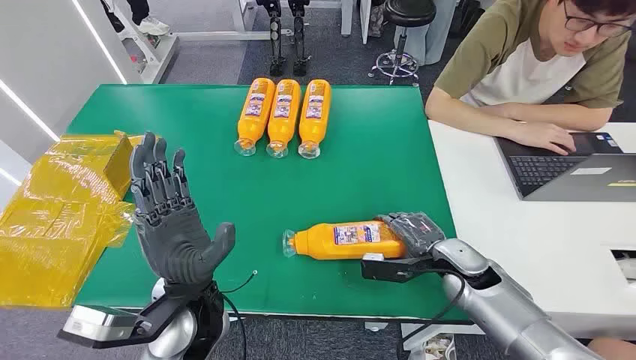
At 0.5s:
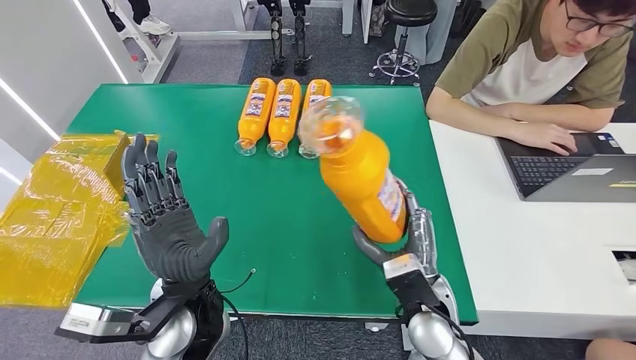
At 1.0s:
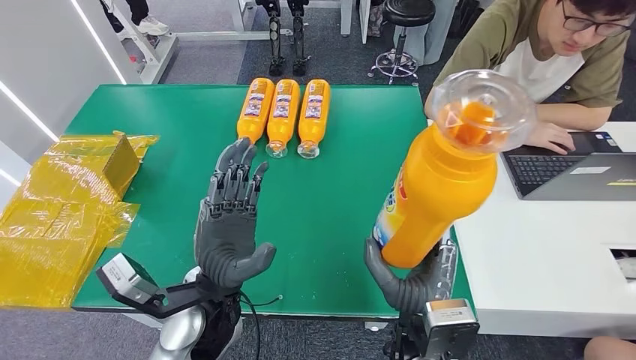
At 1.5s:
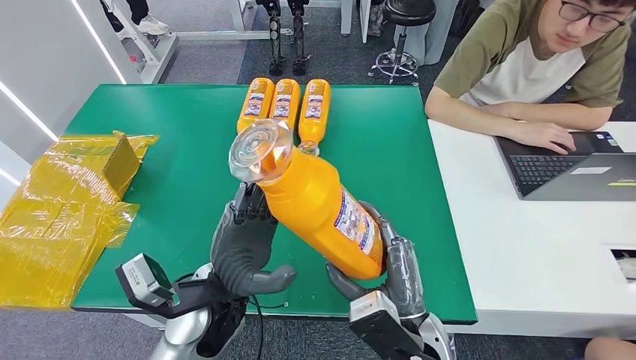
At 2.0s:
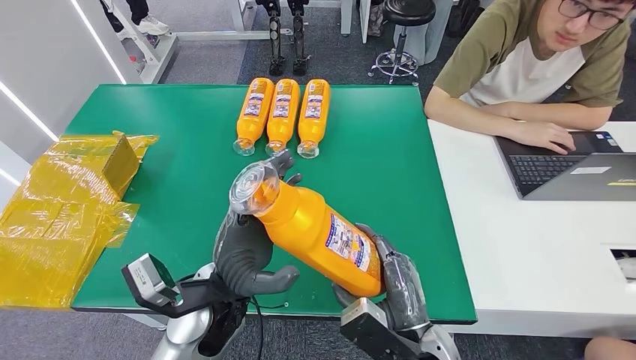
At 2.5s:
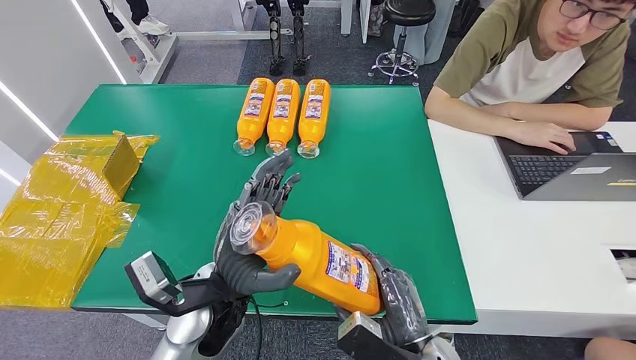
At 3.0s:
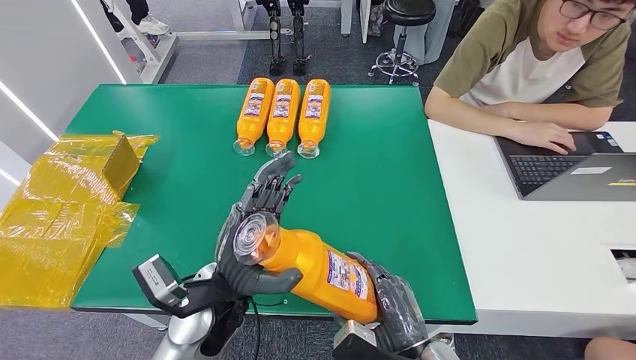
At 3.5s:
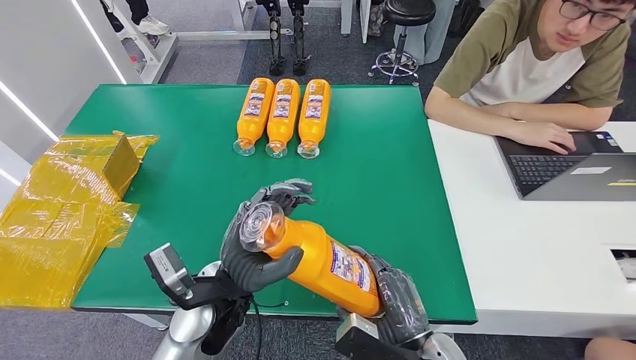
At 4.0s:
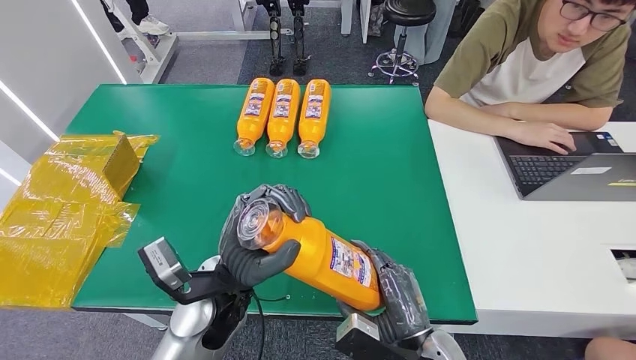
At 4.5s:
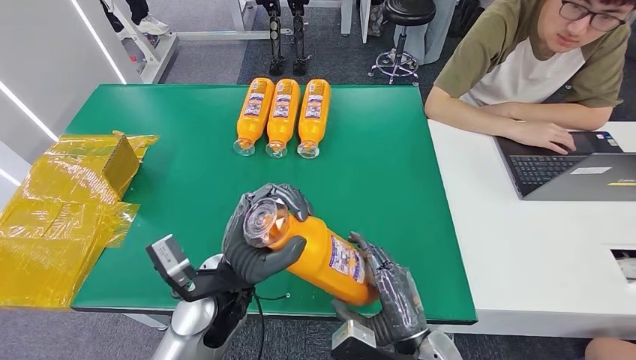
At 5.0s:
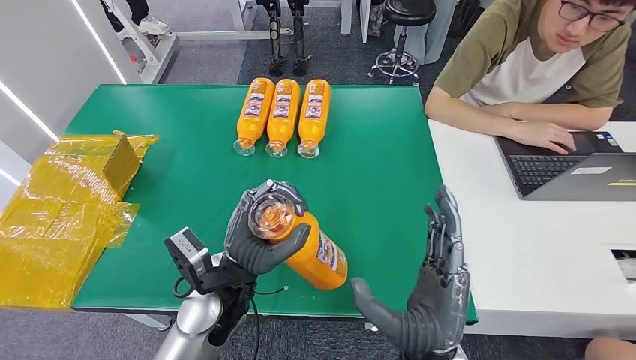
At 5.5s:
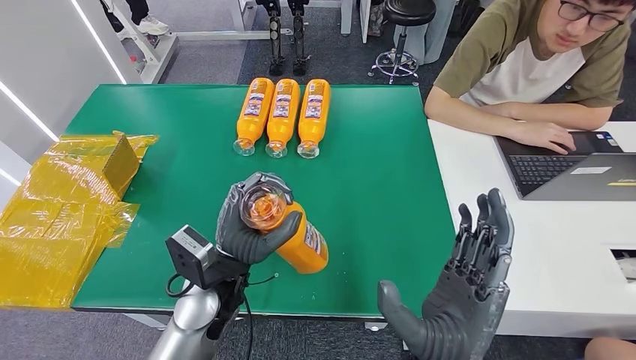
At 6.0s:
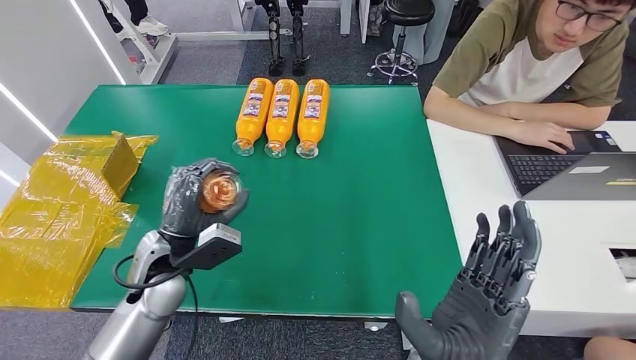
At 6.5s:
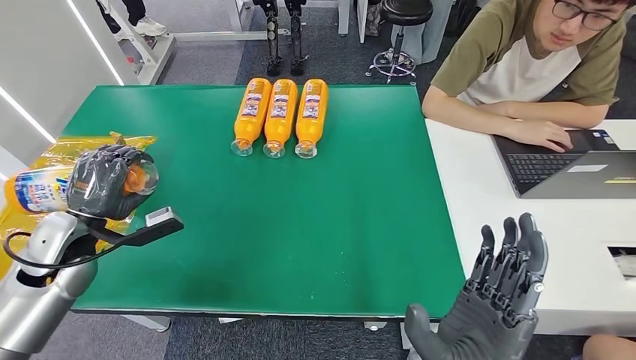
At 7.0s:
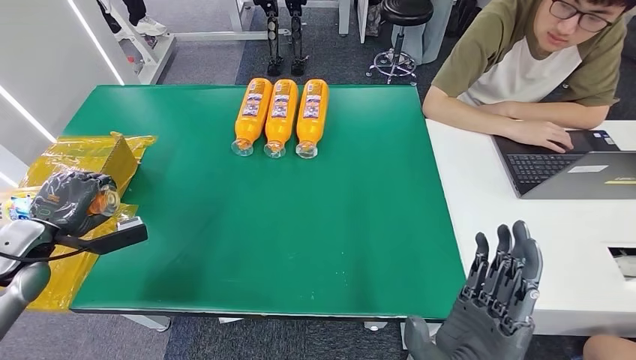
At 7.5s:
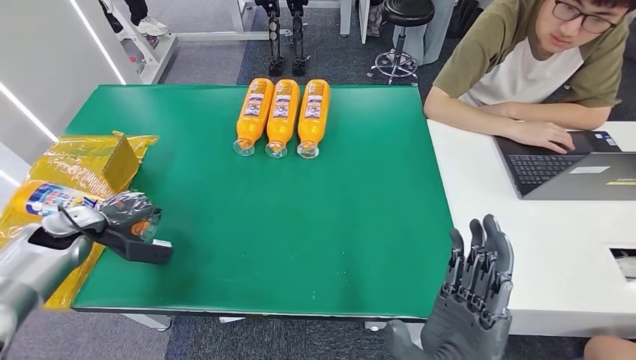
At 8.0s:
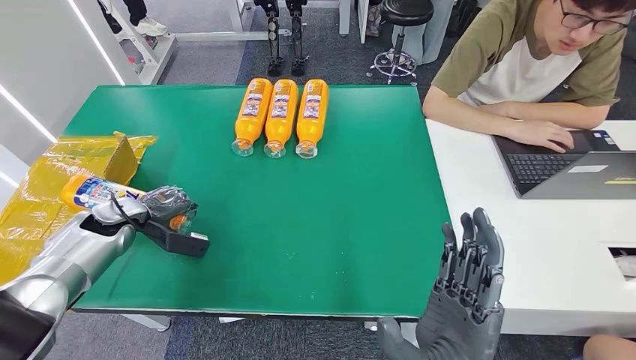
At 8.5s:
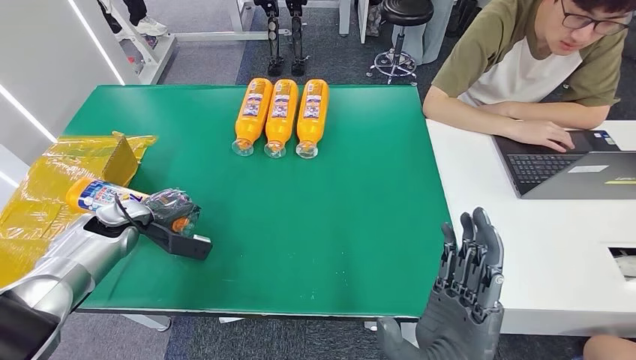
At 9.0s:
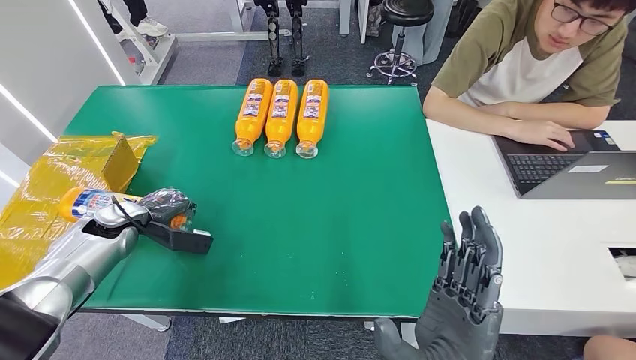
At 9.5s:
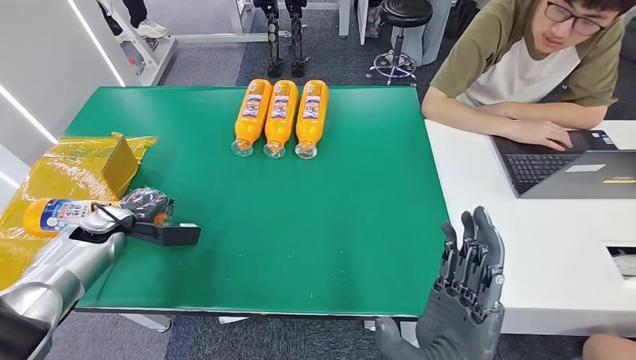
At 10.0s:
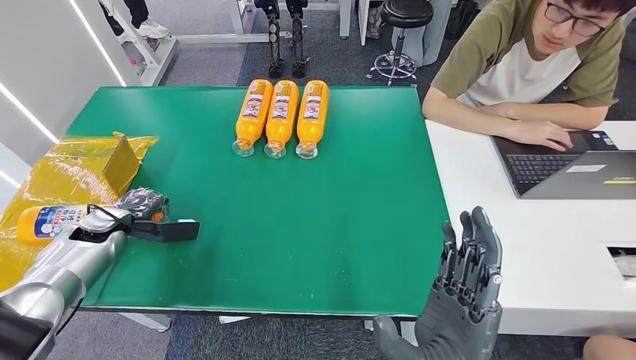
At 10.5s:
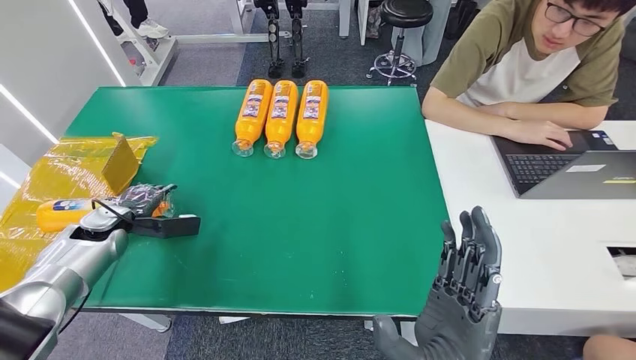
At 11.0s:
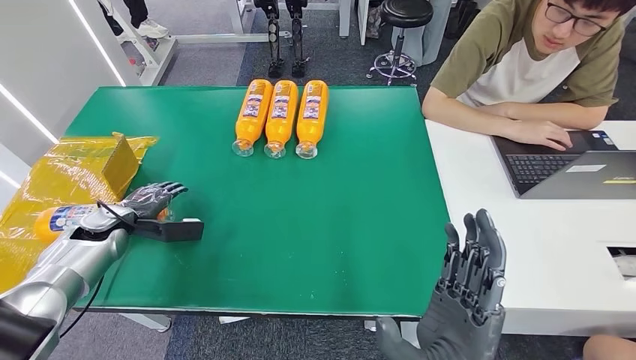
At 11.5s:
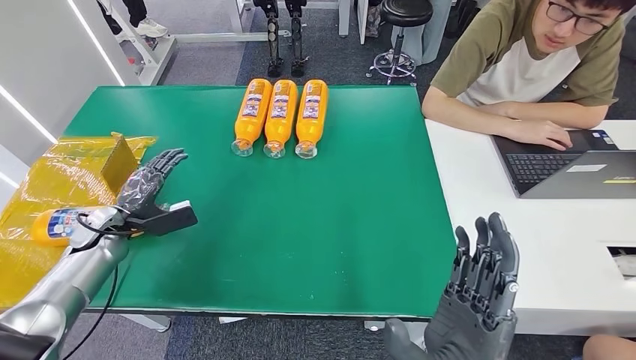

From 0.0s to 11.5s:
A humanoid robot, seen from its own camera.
Step, from 0.0s to 3.5s: Pick up the bottle from the table.
Step, from 4.0s to 11.5s: Turn the bottle to the front side.
From 2.0s to 4.0s: The hands stay close to where they were, moving slightly.
From 6.0s to 7.5s: The left hand heads to the left, covering roughly 25 cm.
From 7.5s to 9.5s: The left hand moves roughly 5 cm.

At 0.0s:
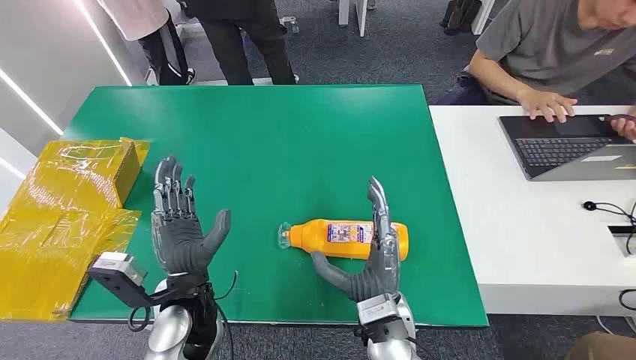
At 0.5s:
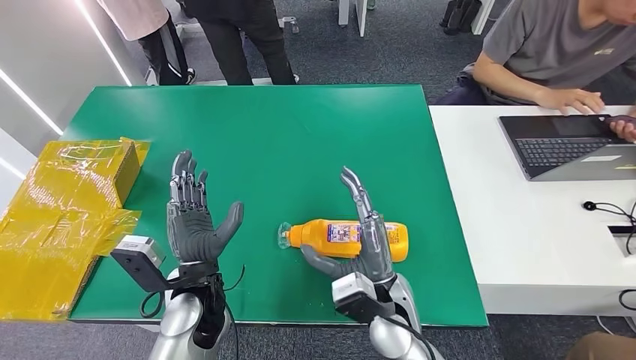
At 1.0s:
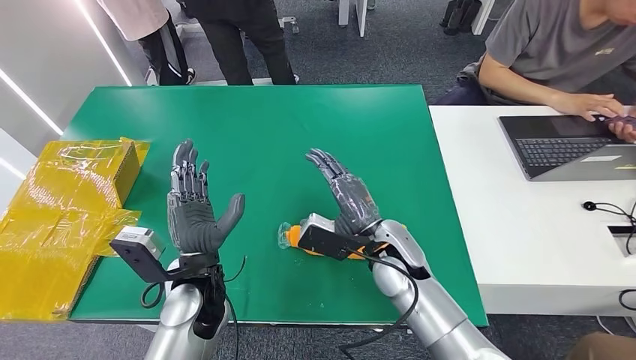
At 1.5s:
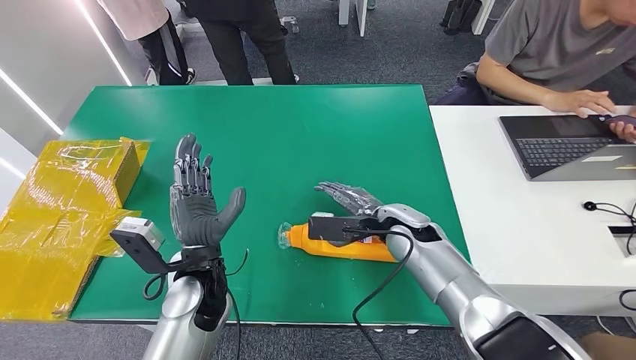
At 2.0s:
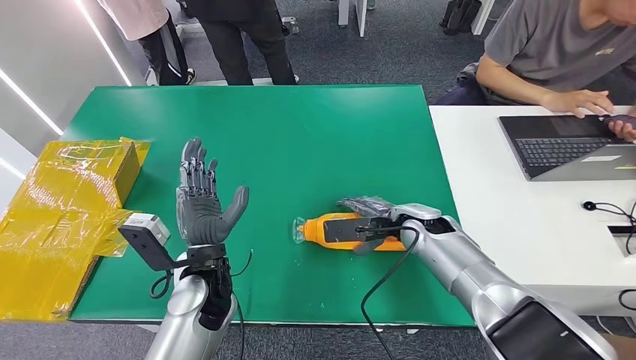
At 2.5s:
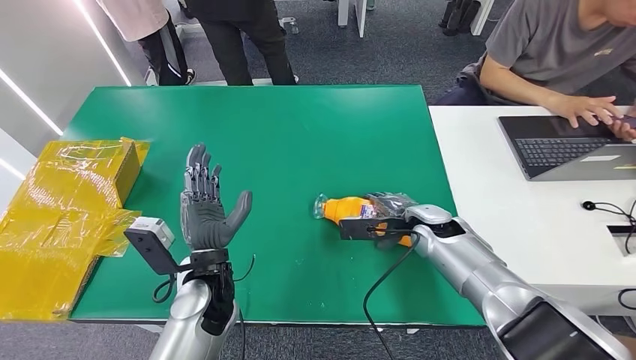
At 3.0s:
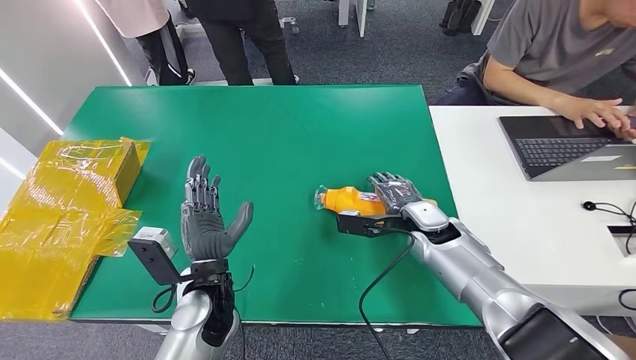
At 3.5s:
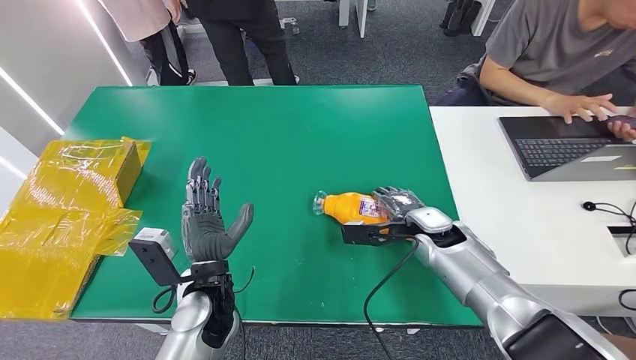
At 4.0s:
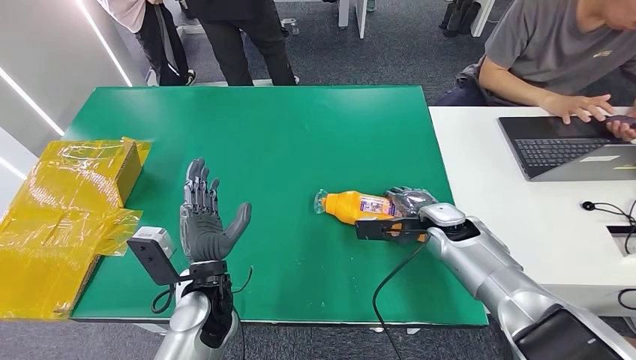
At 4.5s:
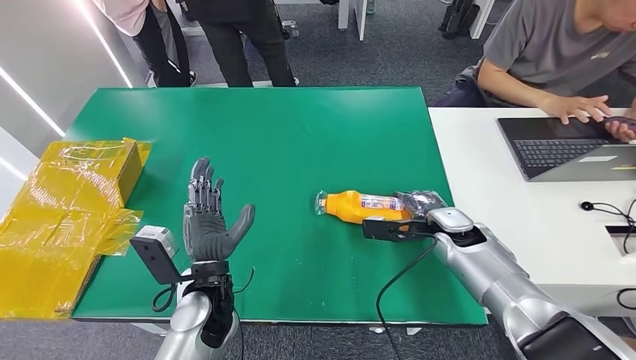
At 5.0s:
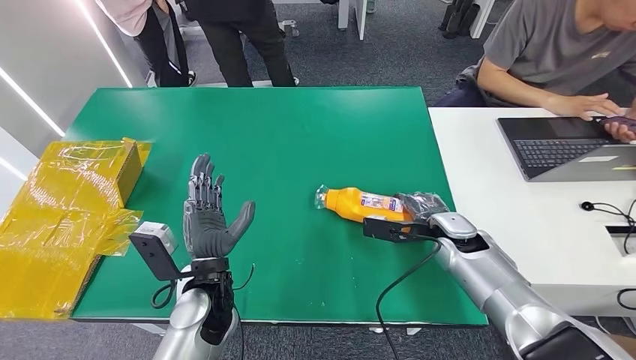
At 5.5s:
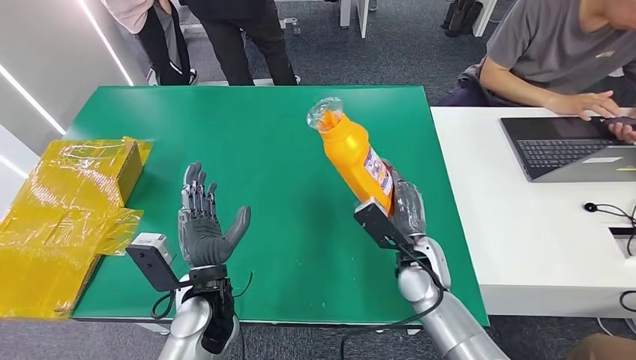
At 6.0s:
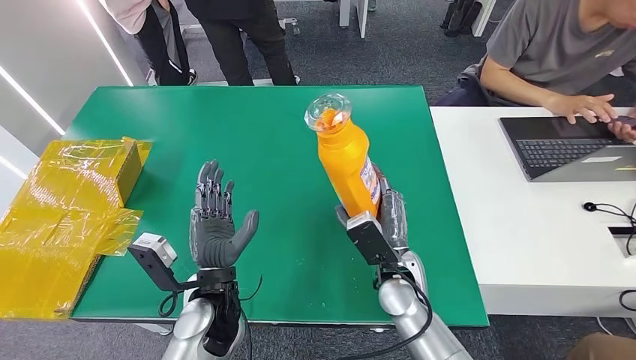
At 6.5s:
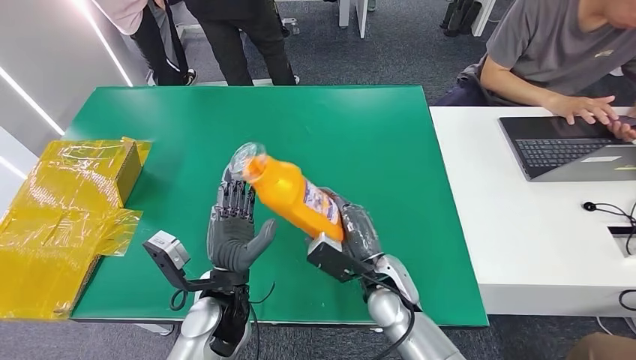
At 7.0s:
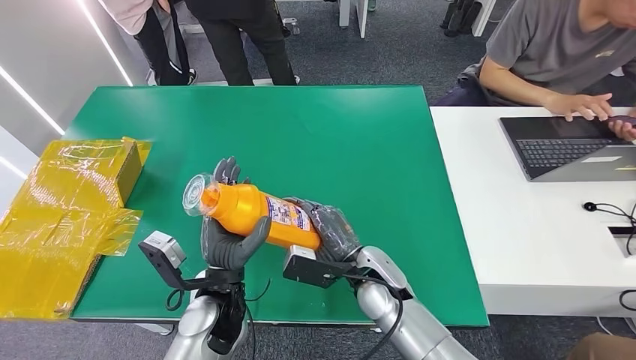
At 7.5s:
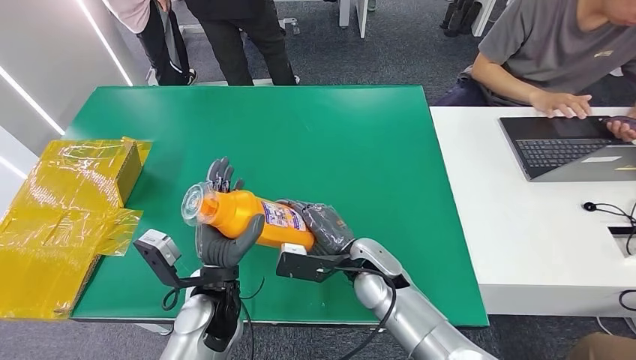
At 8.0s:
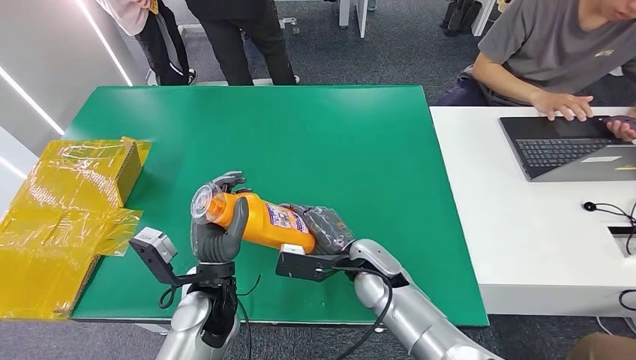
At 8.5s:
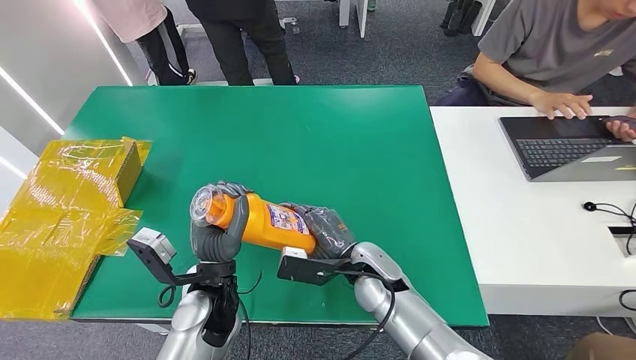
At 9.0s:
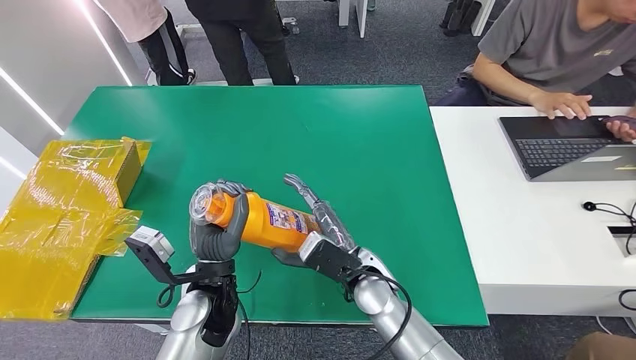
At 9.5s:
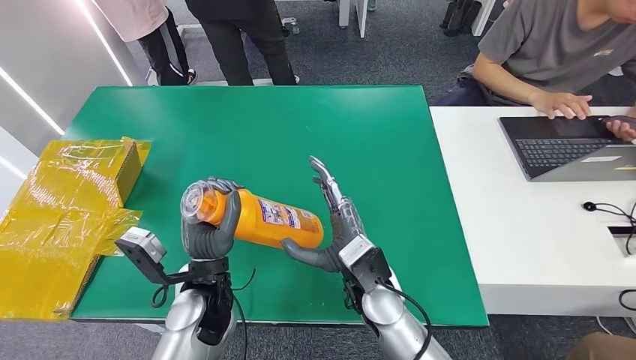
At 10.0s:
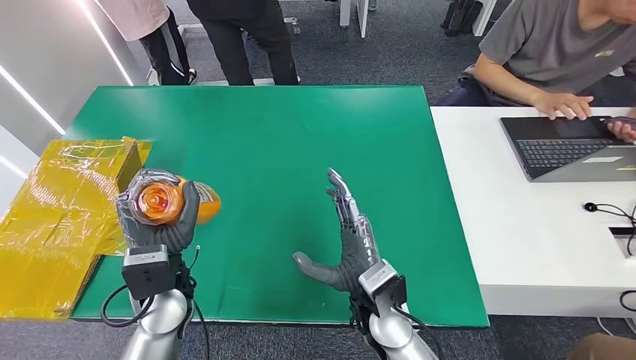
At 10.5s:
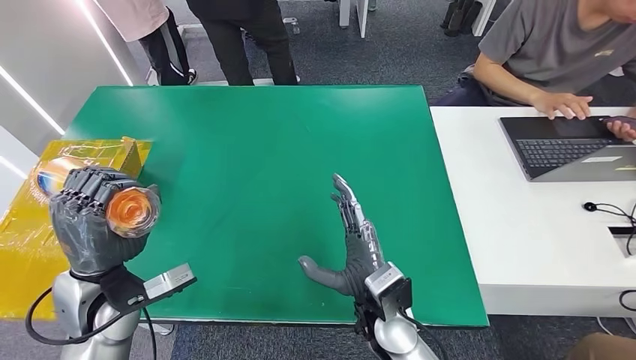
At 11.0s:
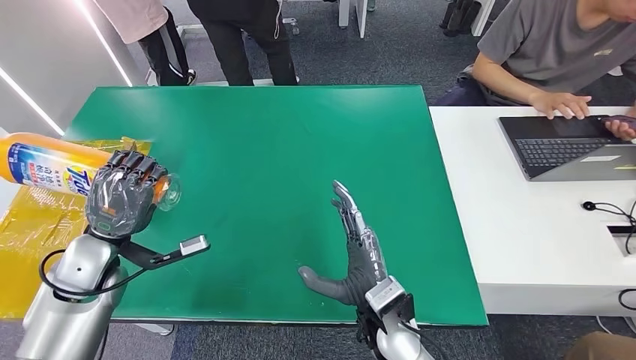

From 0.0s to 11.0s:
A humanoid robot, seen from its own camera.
Step, from 0.0s to 5.5s: Pick up the bottle from the table.
From 3.5s to 5.5s: The right hand goes approximately 5 cm backward.
From 5.5s to 7.5s: The right hand moves to the left, some 10 cm.
From 9.0s to 11.0s: The right hand is displaced backward by some 5 cm. Meanwhile the left hand moves to the left, some 20 cm.
